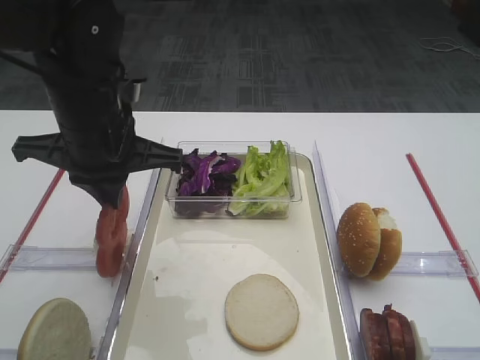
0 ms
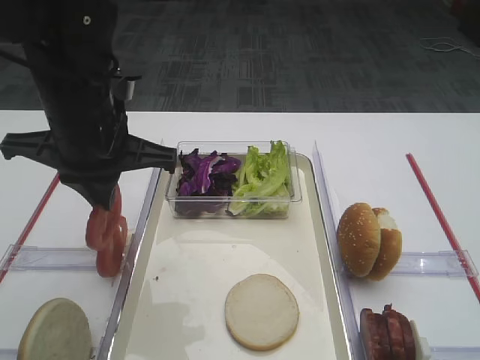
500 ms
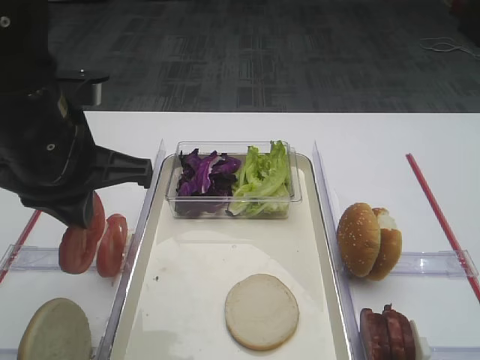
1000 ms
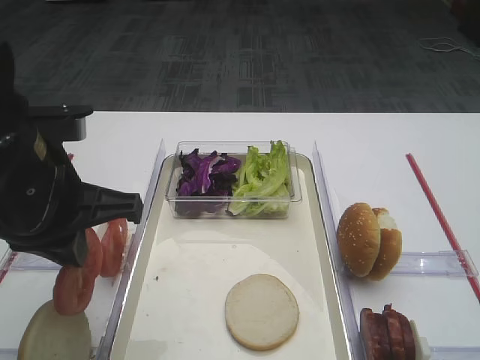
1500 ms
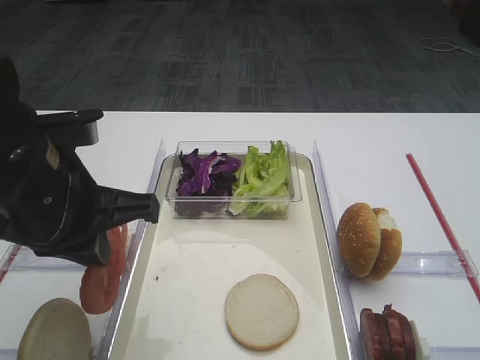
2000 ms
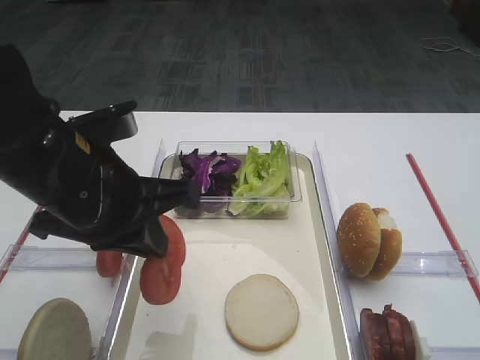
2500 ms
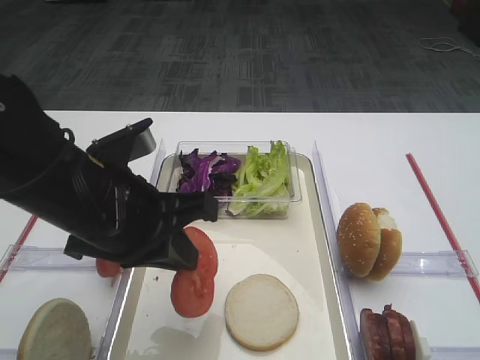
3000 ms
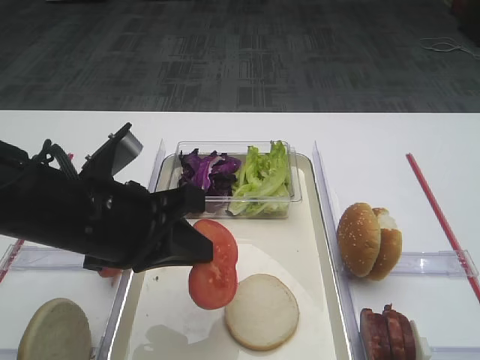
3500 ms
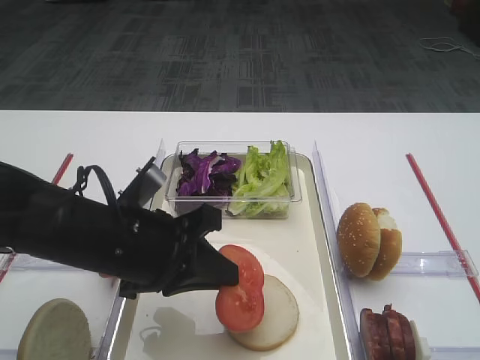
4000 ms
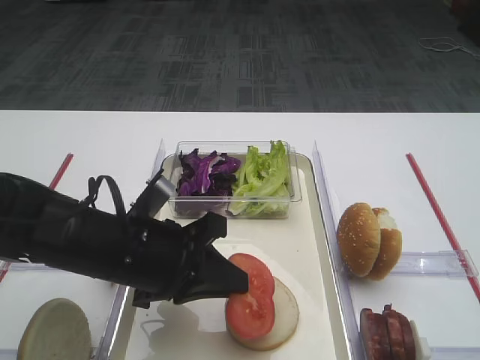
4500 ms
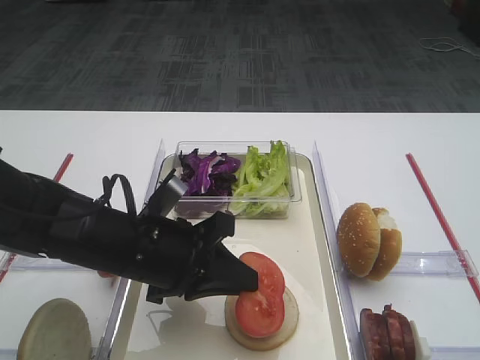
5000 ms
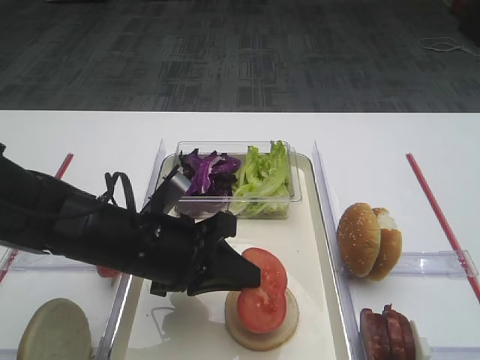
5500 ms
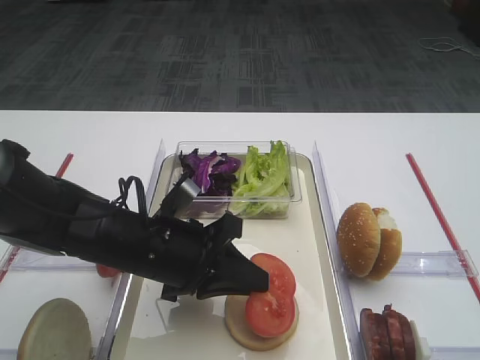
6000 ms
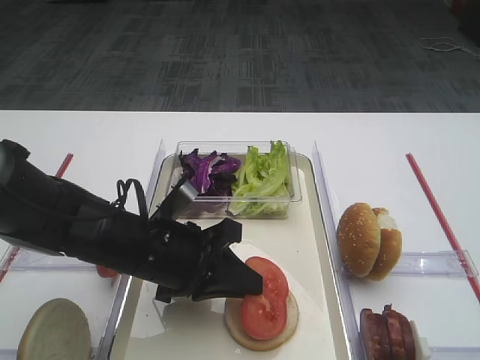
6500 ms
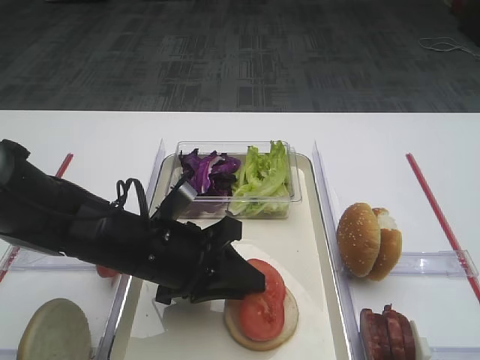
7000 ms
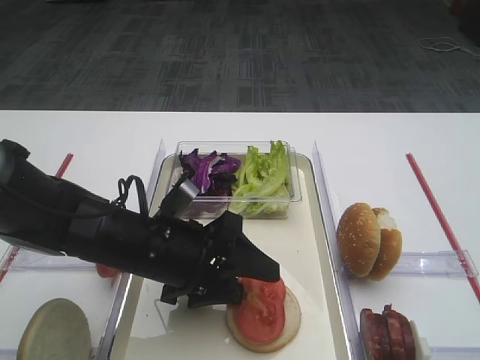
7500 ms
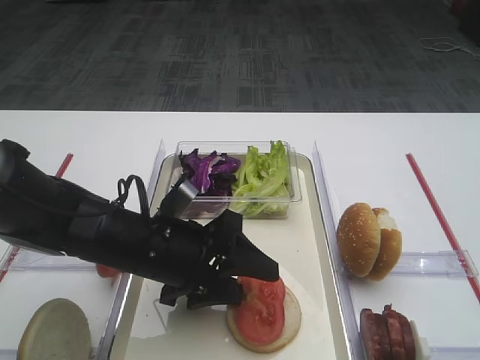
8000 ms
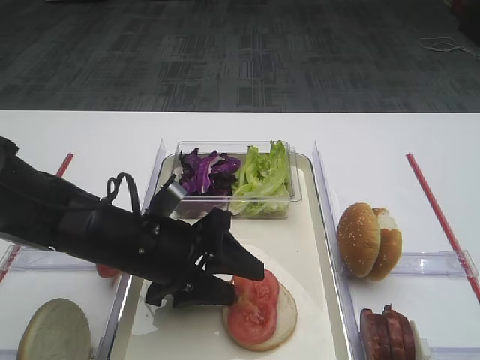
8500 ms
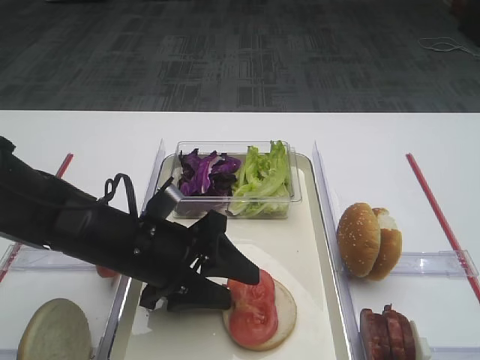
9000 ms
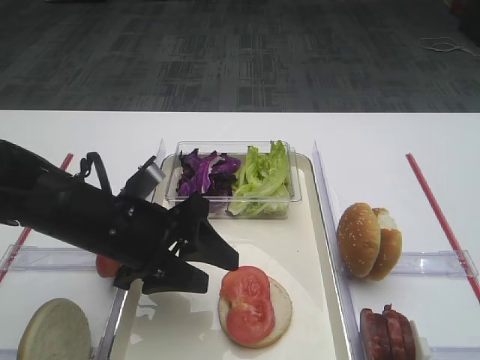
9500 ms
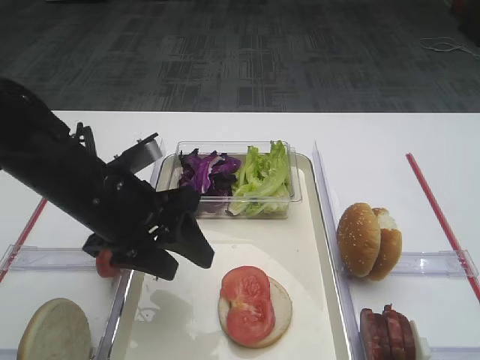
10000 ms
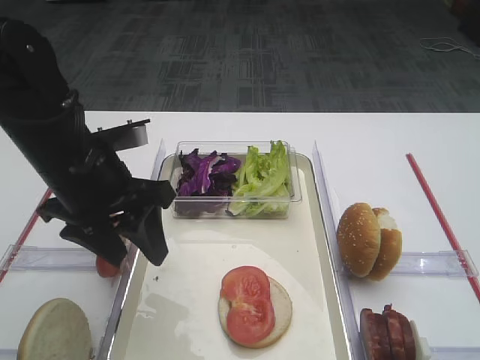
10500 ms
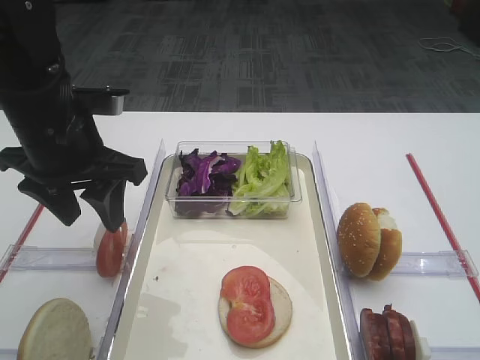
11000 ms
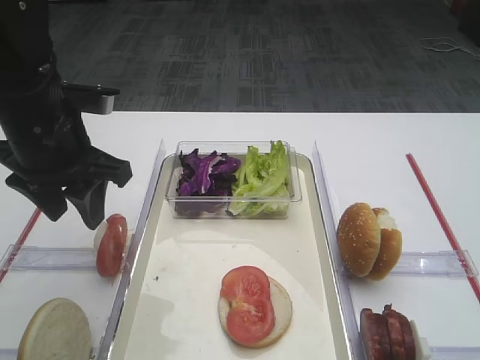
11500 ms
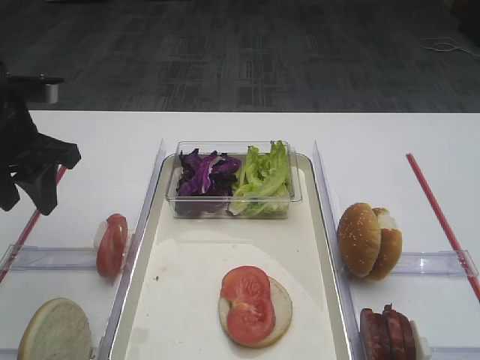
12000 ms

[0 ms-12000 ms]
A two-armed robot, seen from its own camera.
Step, 0 ms to 9500 ms: Place the tomato slice on the bread slice with the left gripper.
0 ms to 2000 ms: The left gripper is displaced backward by about 10 cm.
2000 ms to 4000 ms: The left gripper heads downward, covering some 10 cm.
4000 ms to 6000 ms: The grippers move only a little.
6000 ms to 8000 ms: The left gripper opens its fingers.
8000 ms to 10000 ms: The left gripper is displaced upward and to the left by roughly 5 cm.
10000 ms to 12000 ms: The left gripper shifts approximately 15 cm to the left, upward and forward.

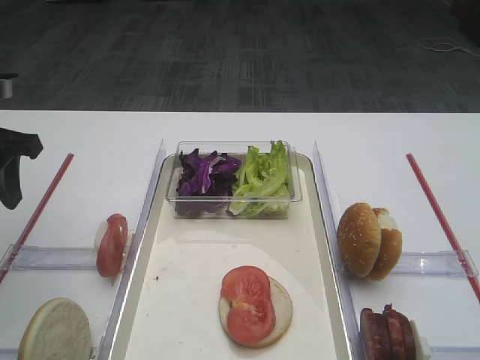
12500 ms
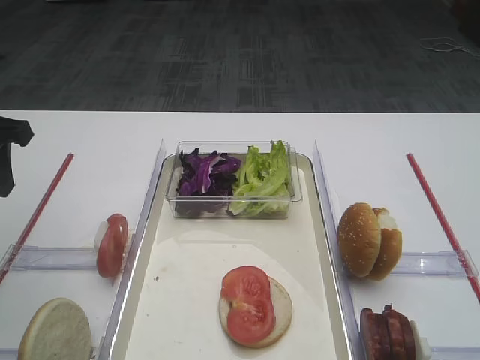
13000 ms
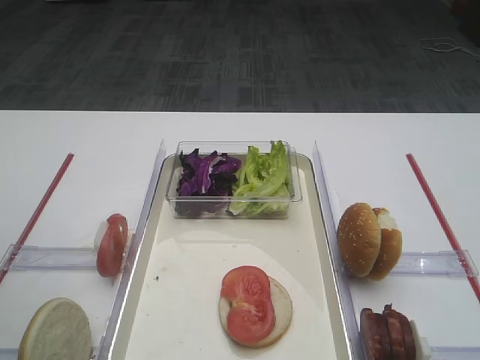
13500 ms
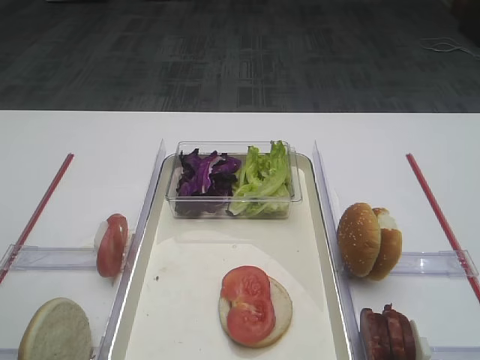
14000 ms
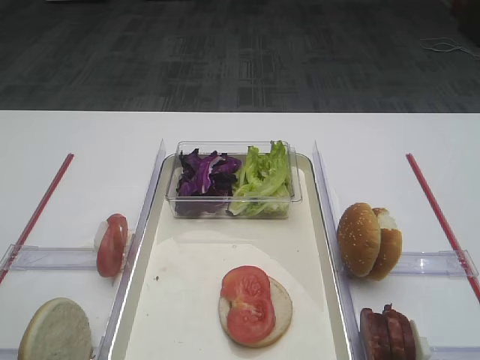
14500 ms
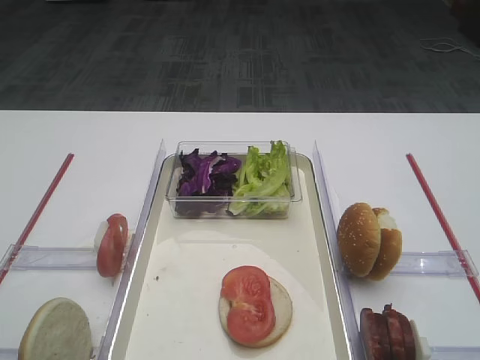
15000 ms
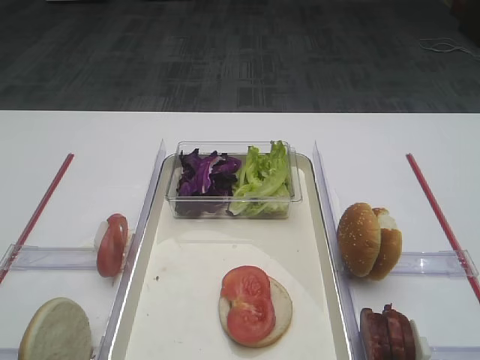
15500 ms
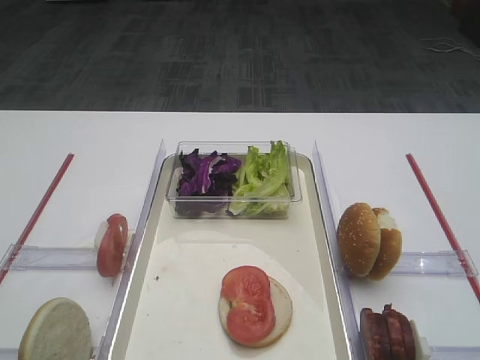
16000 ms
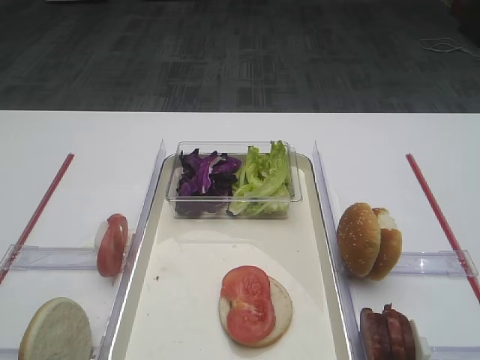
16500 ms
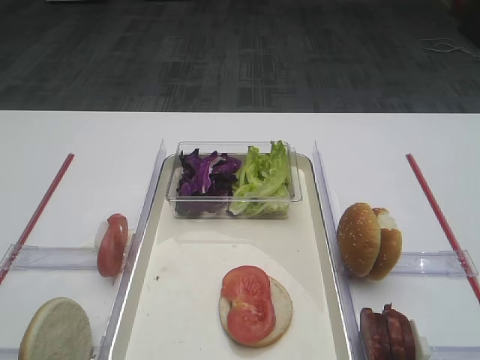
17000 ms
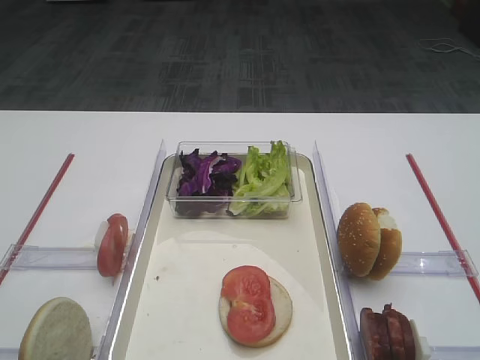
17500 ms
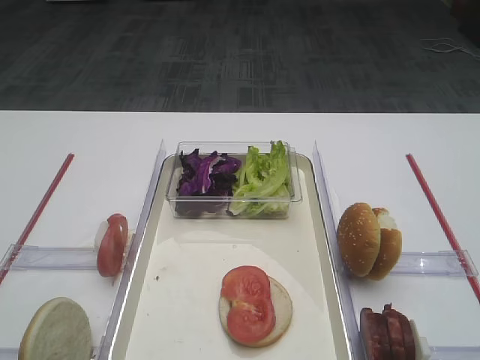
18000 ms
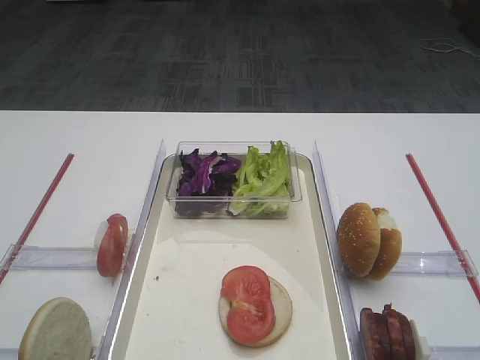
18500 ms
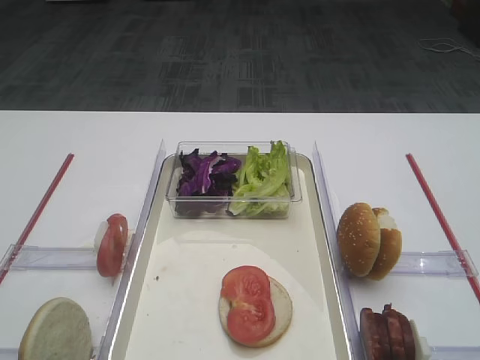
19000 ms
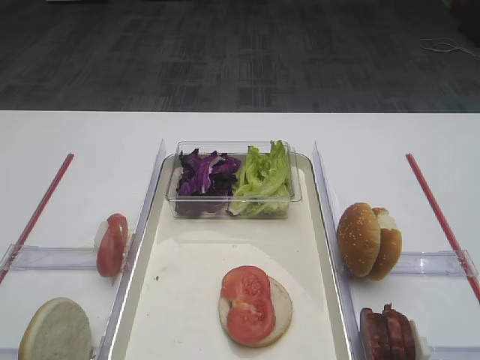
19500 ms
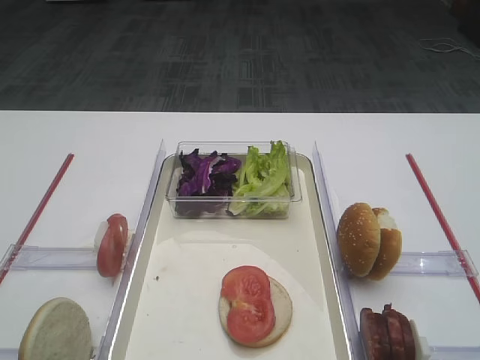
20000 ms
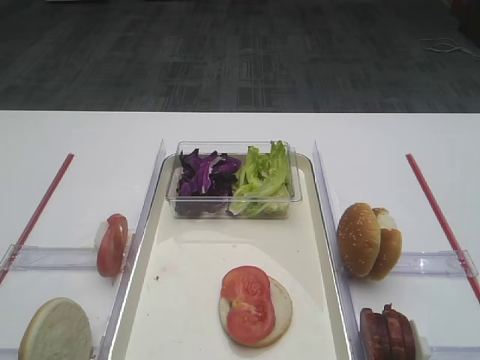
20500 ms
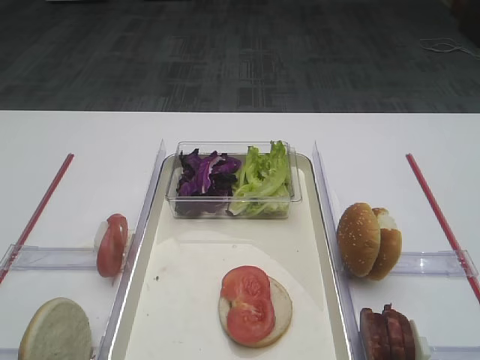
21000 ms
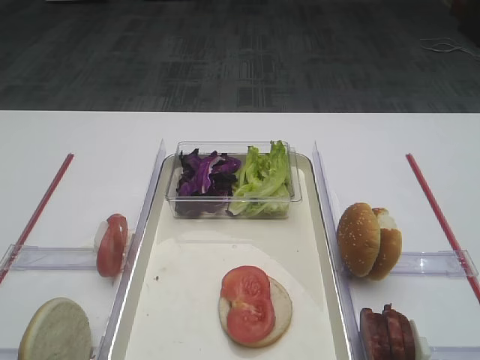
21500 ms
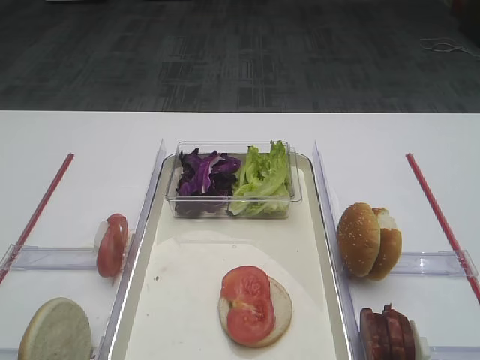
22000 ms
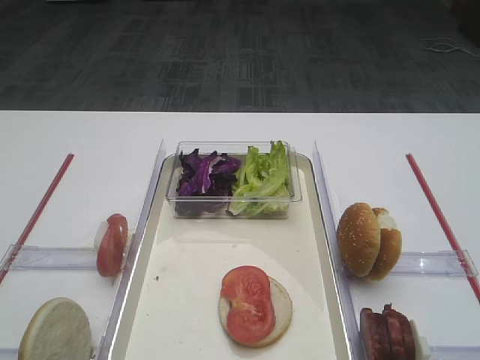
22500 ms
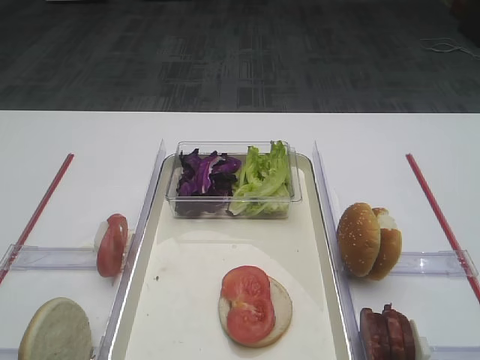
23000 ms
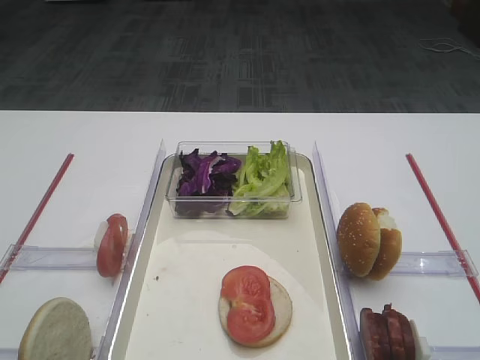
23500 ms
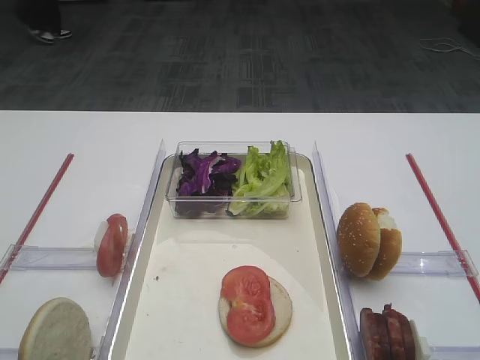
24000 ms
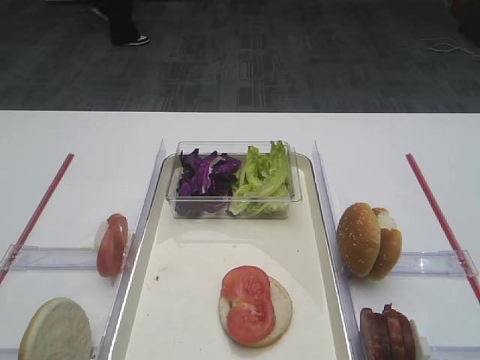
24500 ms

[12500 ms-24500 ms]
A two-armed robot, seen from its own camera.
12500 ms to 14500 ms: The left gripper is displaced backward by about 20 cm.
20500 ms to 24500 ms: Neither gripper changes place.

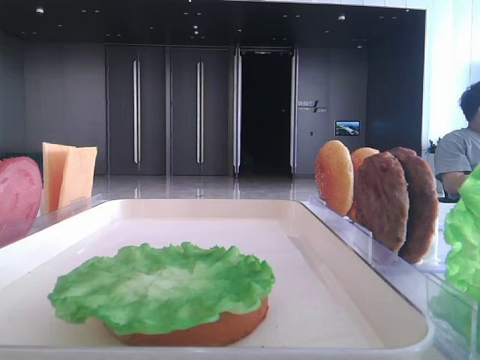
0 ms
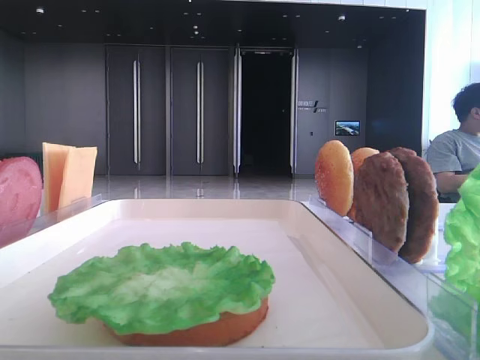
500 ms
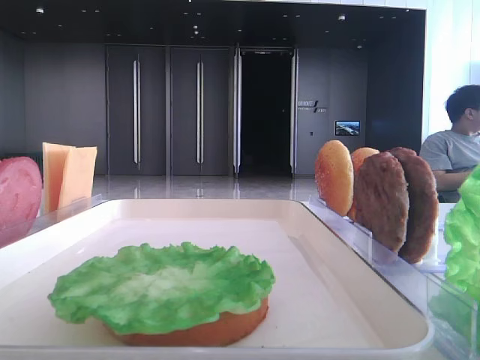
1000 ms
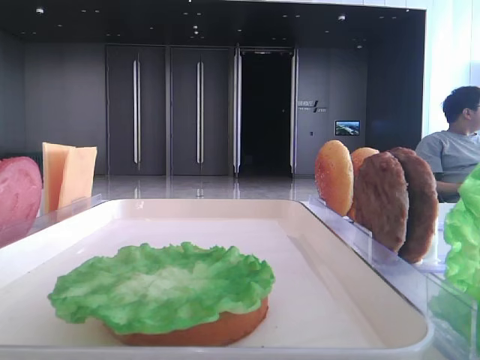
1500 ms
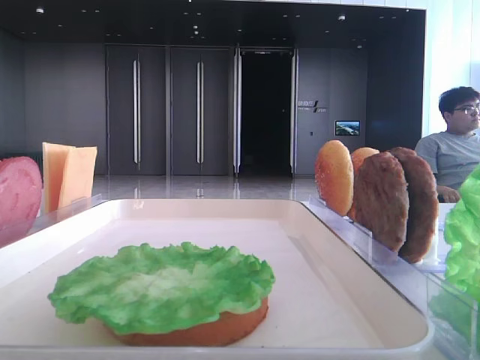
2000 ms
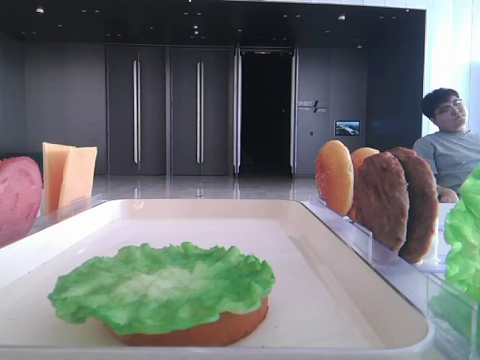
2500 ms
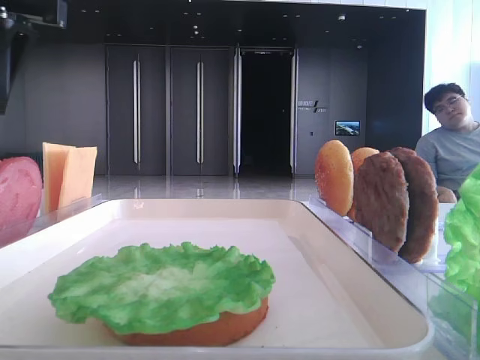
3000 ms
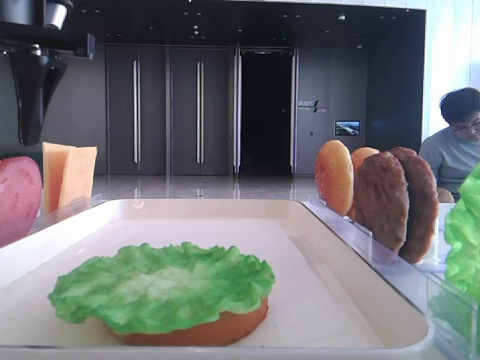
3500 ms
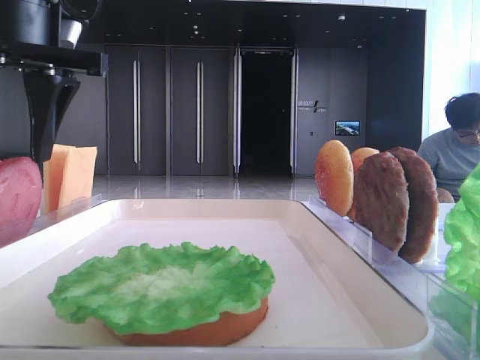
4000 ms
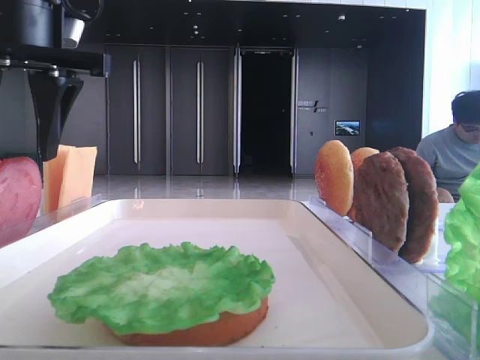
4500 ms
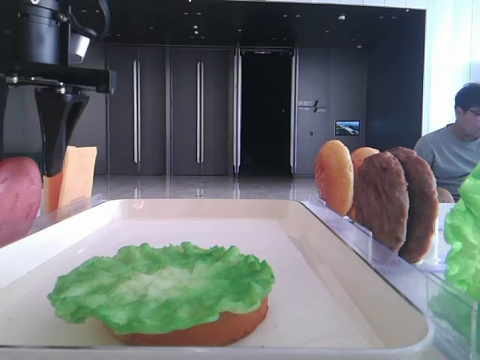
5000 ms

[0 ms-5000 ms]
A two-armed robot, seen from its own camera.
2500 ms to 5000 ms: The left gripper is displaced downward by about 10 cm.
